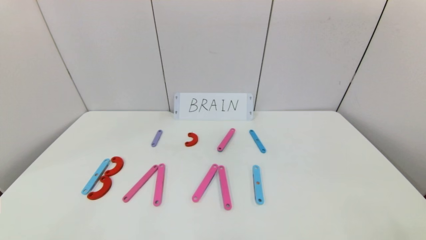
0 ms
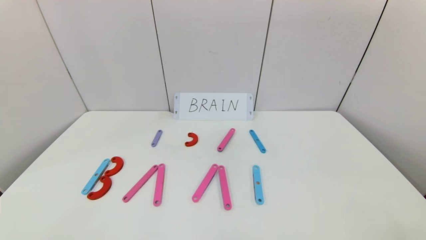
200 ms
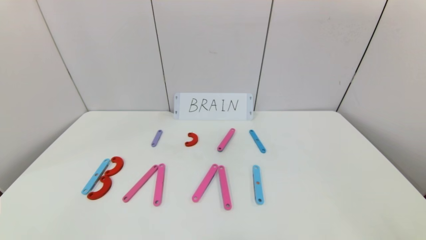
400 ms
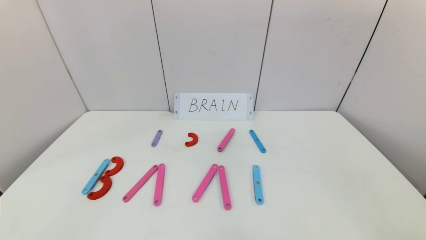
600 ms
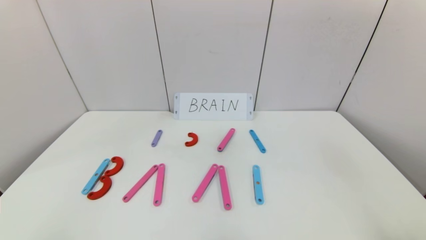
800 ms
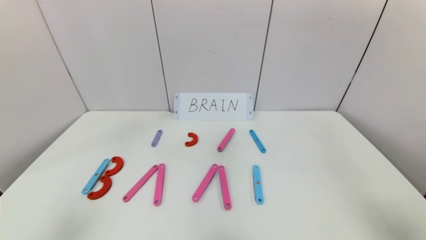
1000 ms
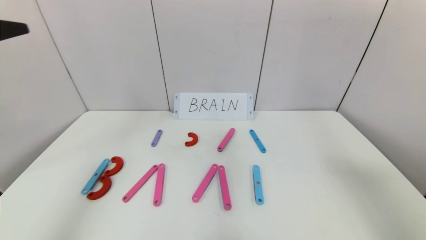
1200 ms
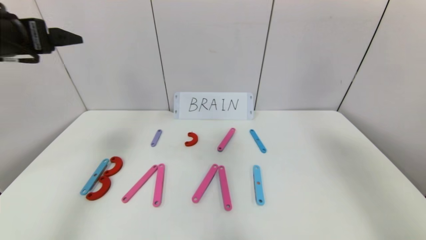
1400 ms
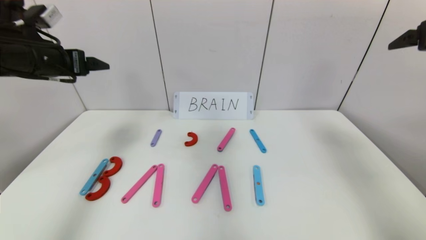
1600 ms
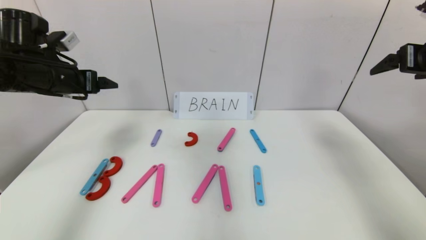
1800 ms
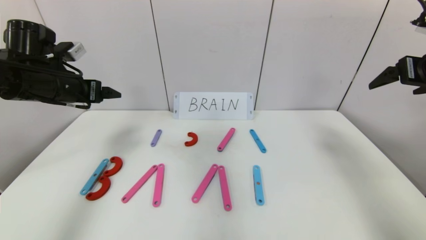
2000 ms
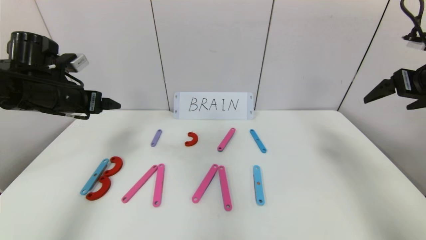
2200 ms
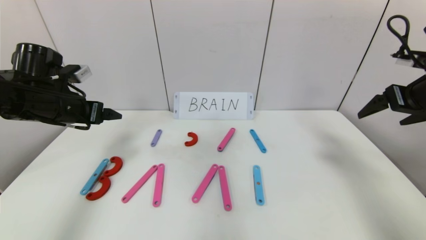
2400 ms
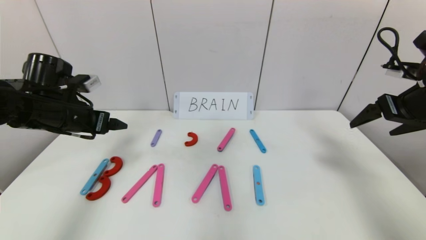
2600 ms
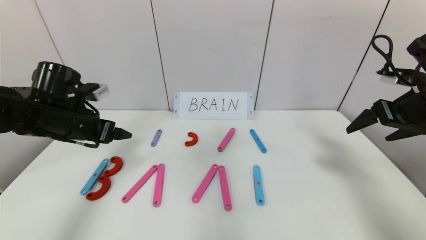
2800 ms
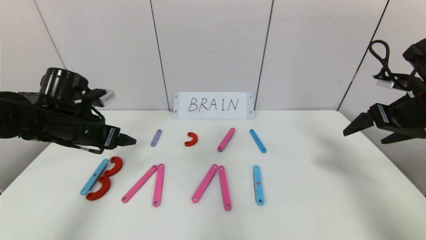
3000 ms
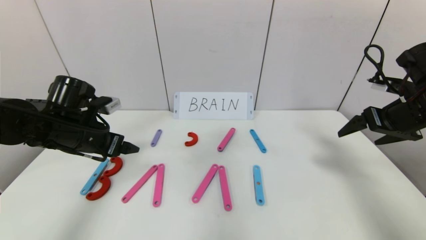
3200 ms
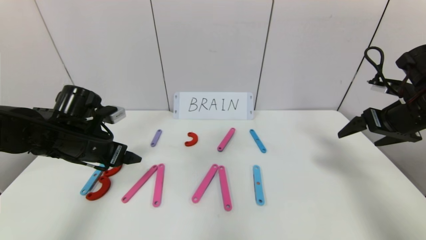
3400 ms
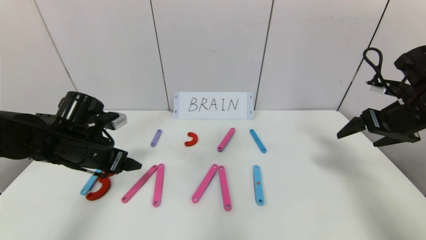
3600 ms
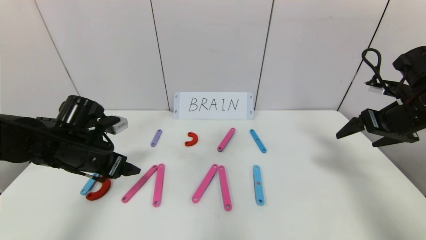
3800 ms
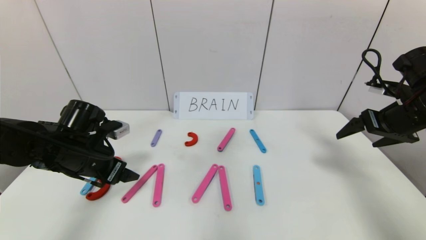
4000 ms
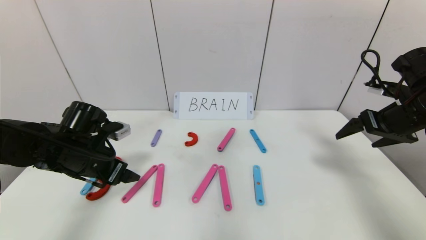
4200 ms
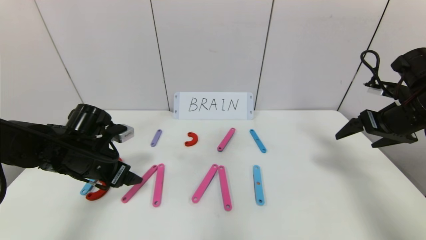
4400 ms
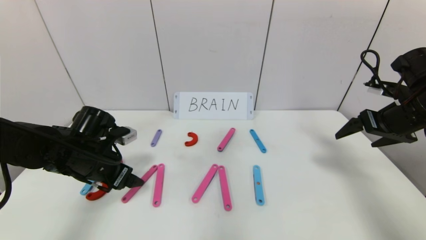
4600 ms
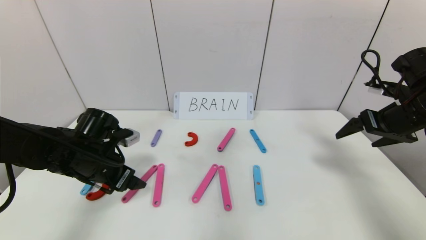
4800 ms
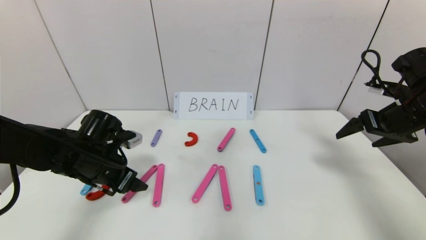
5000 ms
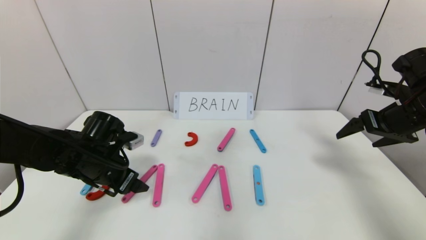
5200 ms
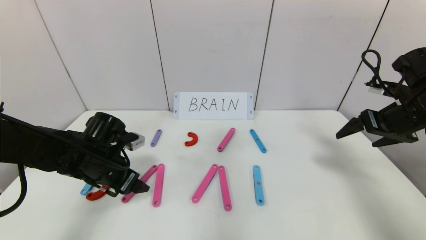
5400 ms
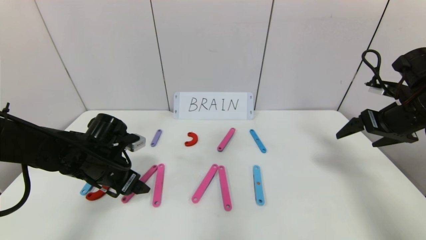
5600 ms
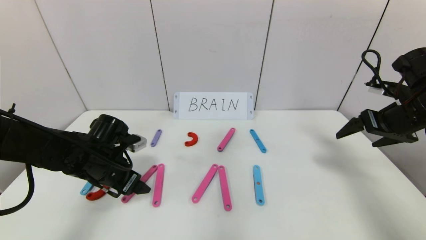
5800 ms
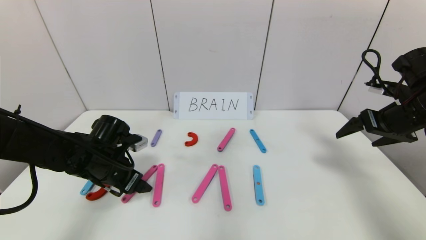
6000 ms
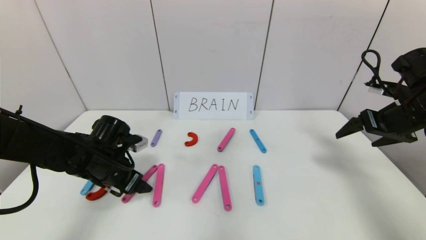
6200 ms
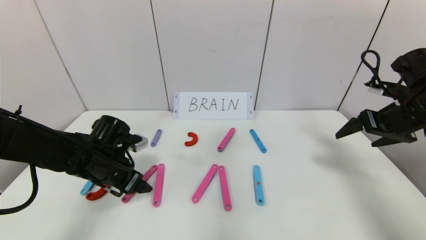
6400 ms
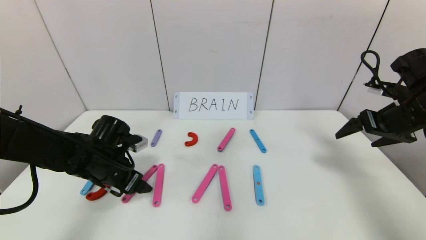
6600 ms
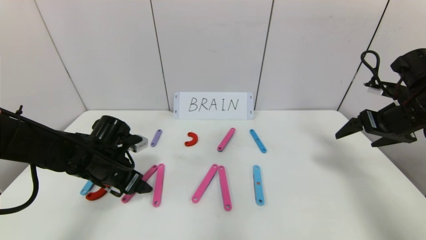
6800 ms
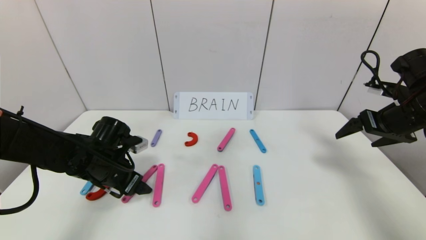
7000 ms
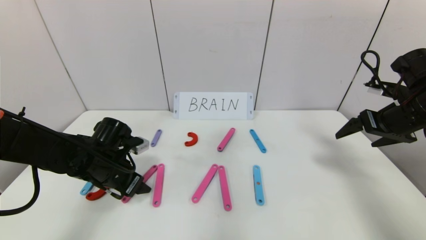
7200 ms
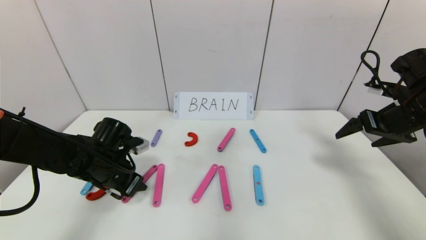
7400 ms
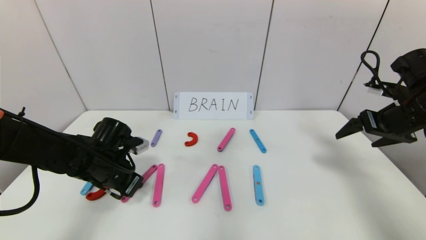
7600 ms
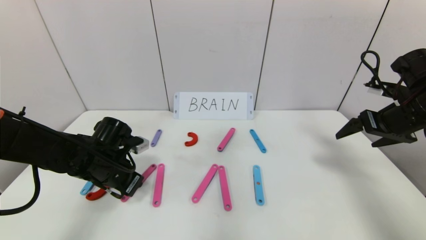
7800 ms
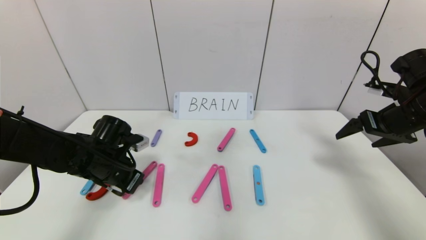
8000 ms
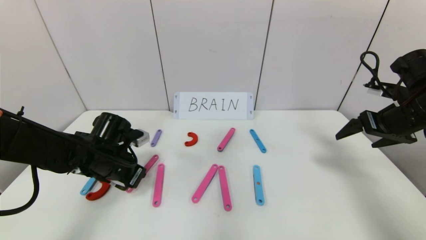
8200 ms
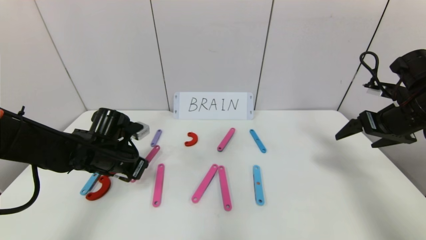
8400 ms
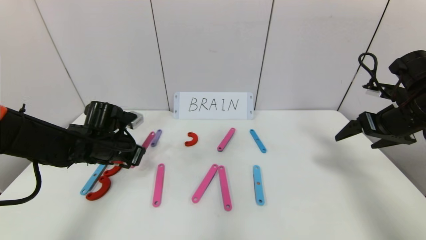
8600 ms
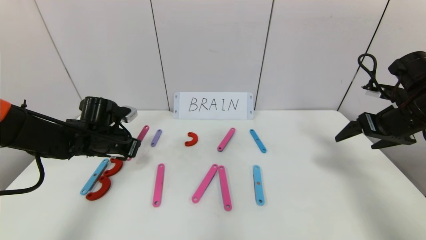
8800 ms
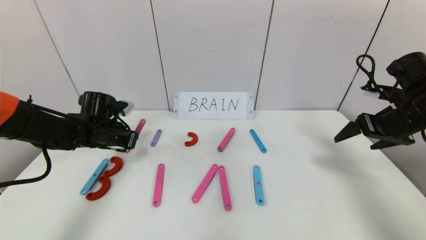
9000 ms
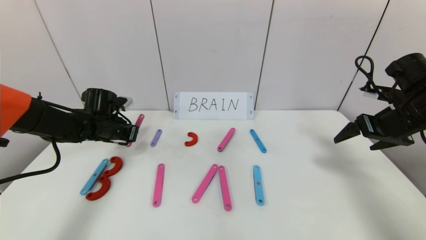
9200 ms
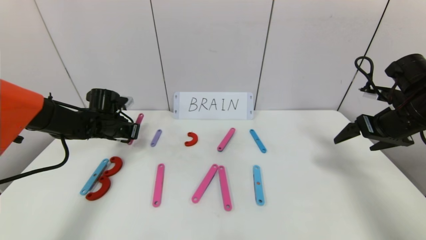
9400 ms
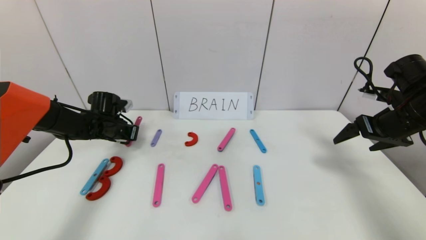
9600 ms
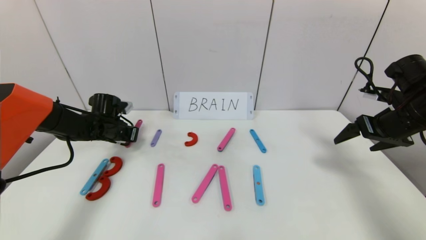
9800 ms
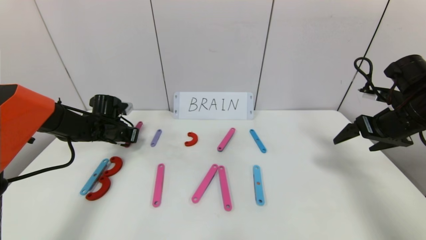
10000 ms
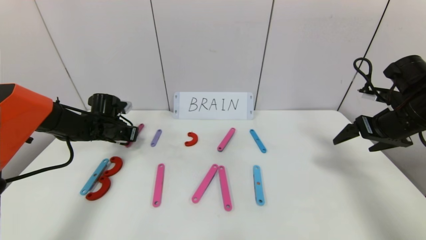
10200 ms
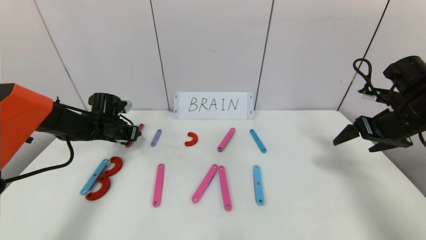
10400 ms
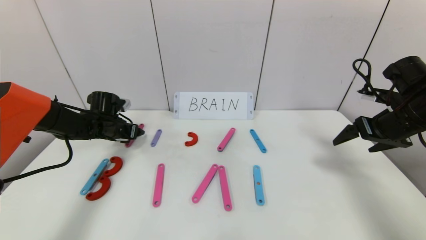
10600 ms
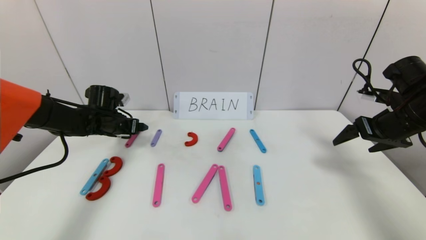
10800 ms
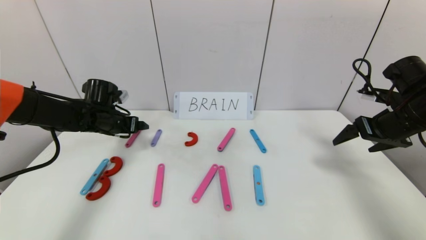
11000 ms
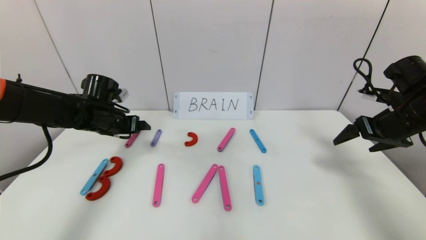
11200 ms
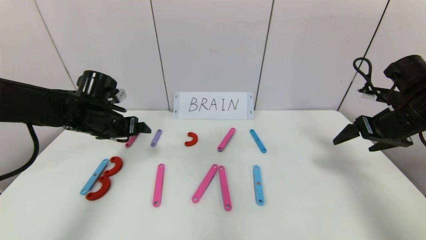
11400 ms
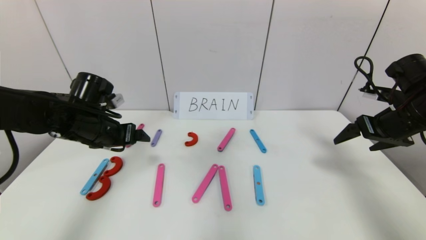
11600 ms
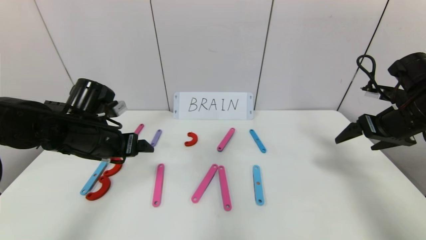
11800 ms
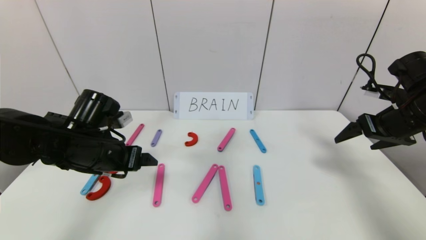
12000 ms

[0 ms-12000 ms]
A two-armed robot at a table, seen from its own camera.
Task of the whole recording: rearrange the word baai as brain.
0 ms to 1600 ms: Both grippers move forward and upward, about 40 cm.
1600 ms to 3000 ms: Both grippers travel together downward, about 10 cm.
3000 ms to 4400 ms: The left gripper goes roughly 5 cm downward.
4400 ms to 6000 ms: The grippers stay close to where they were, moving slightly.
6000 ms to 7600 ms: The left gripper closes.
7600 ms to 9000 ms: The left gripper heads forward, covering roughly 10 cm.
9000 ms to 10400 ms: The left gripper is displaced forward by about 5 cm, and opens.
10400 ms to 12000 ms: The left gripper is displaced backward, to the right and upward by about 20 cm, and opens its fingers.

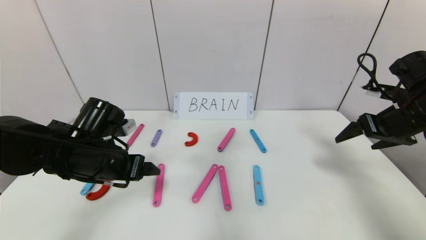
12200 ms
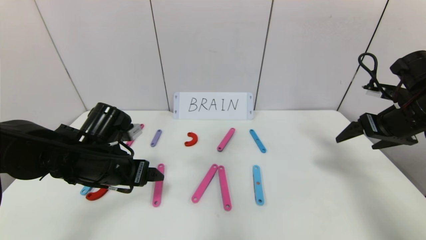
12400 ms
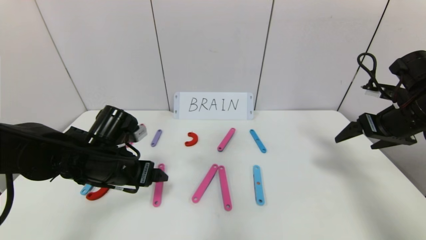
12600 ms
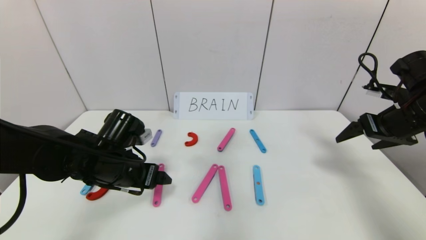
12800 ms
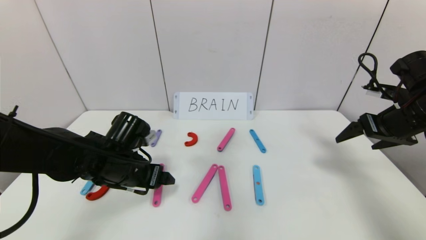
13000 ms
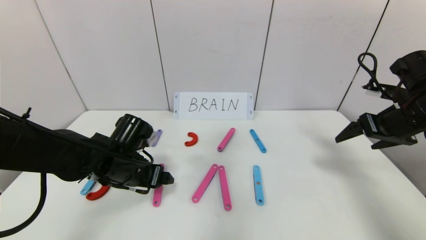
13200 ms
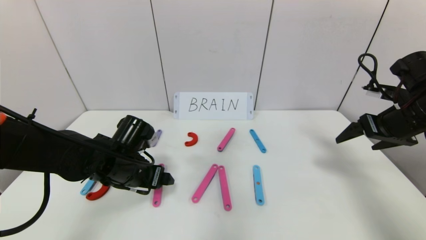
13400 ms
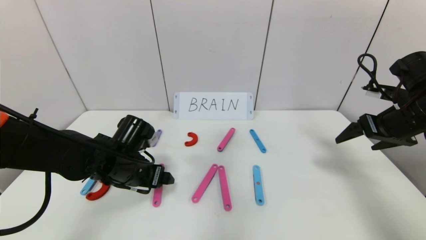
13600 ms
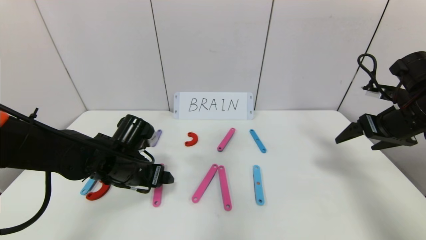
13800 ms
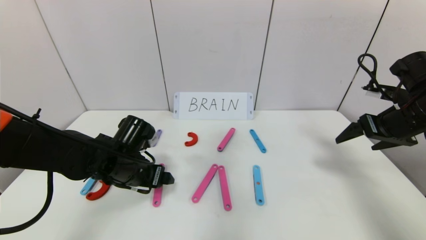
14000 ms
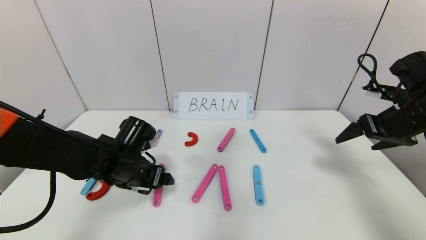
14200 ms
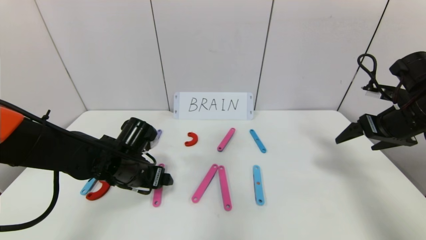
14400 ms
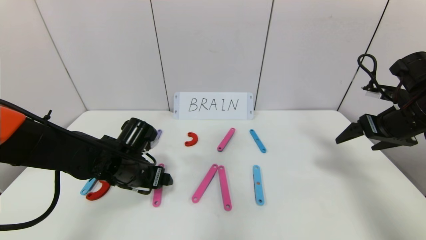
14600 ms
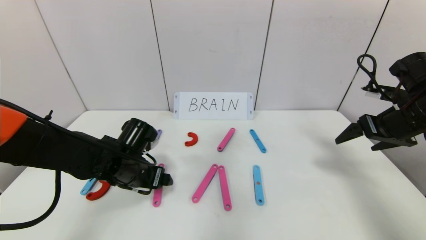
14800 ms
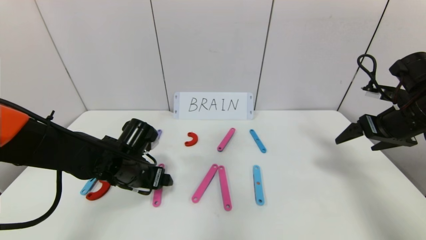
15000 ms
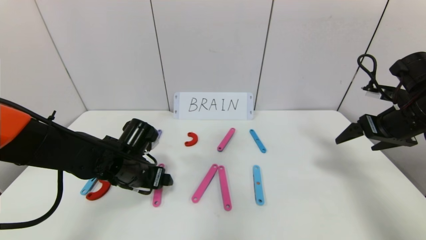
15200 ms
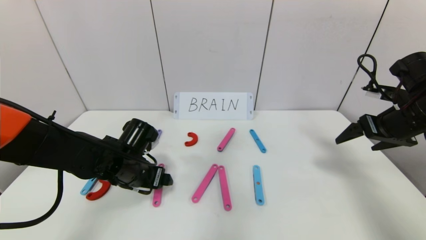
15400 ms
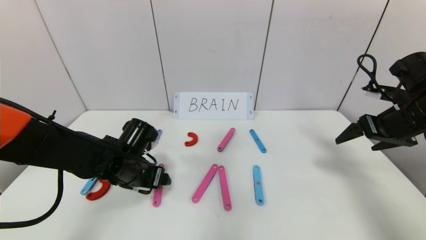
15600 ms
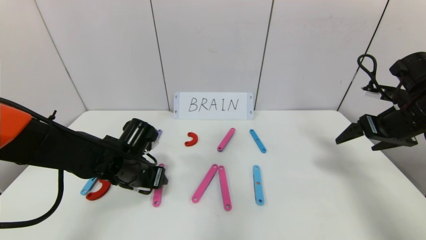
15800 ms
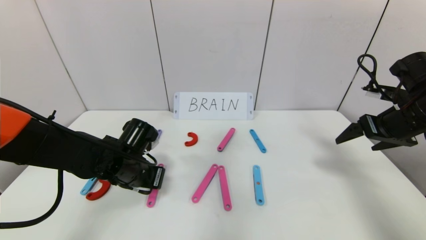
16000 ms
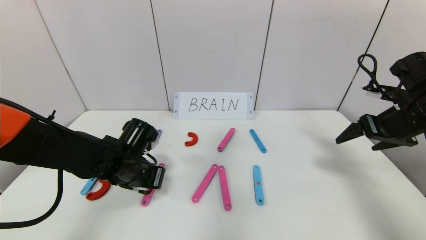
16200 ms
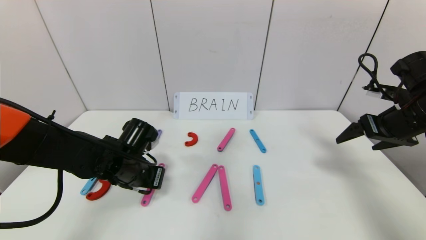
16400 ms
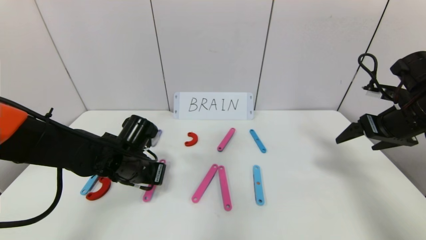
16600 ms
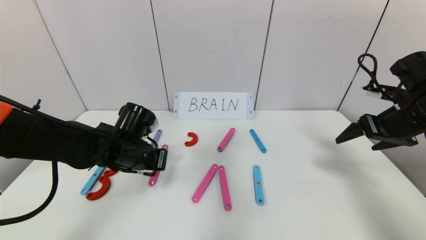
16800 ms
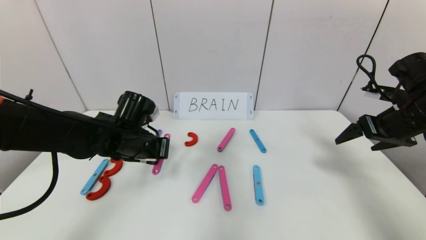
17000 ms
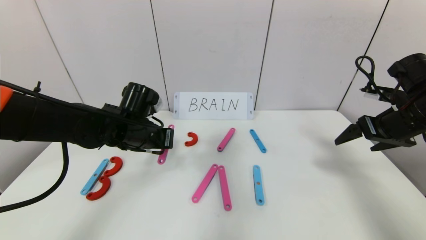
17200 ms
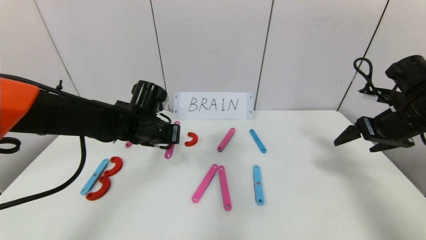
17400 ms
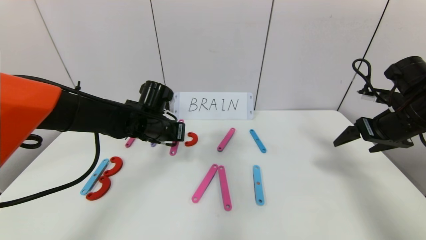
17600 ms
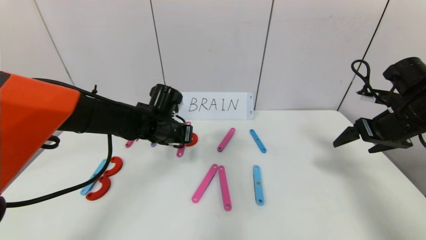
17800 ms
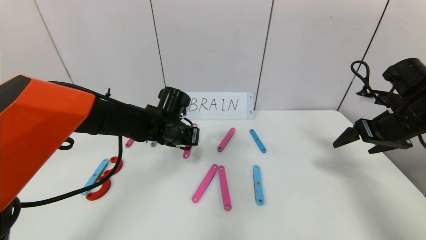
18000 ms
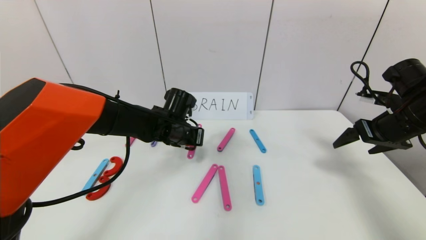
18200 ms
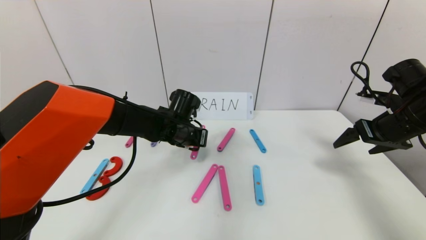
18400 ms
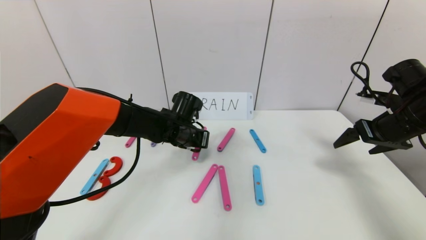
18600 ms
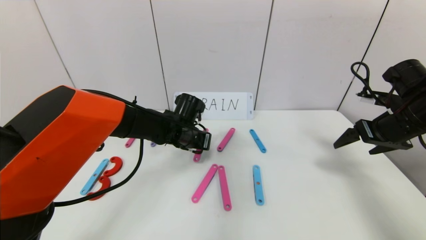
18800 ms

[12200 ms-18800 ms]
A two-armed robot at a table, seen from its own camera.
Task of the whole recording: rearrange the word baai as brain.
12200 ms to 13800 ms: The left gripper moves some 5 cm.
13800 ms to 15400 ms: There are only small adjustments of the grippers.
15400 ms to 17200 ms: The left gripper moves upward, about 5 cm, and closes up.
17200 ms to 18800 ms: The left gripper goes some 10 cm to the right and forward.
